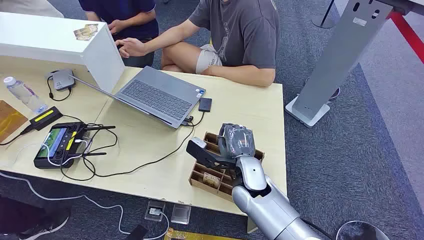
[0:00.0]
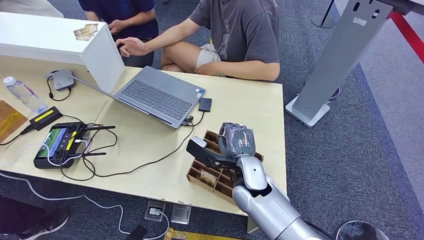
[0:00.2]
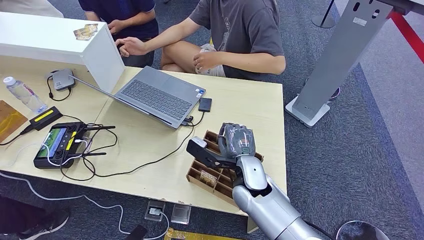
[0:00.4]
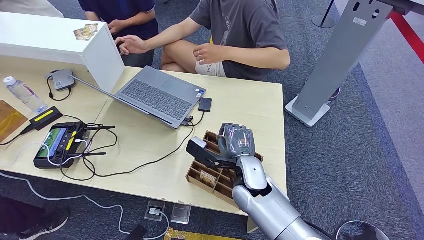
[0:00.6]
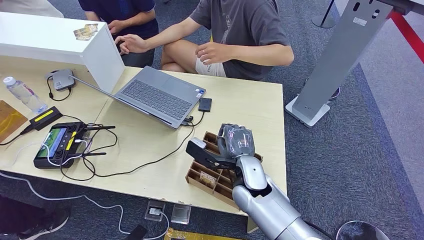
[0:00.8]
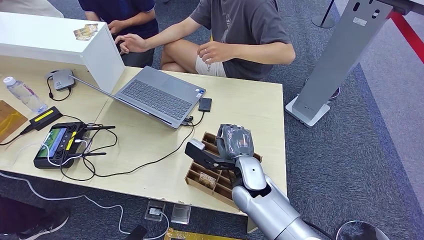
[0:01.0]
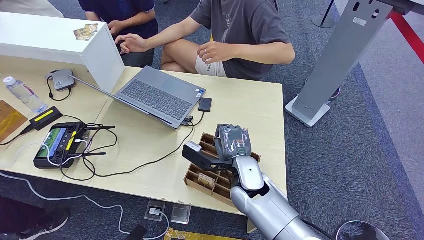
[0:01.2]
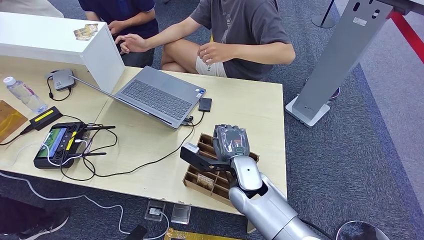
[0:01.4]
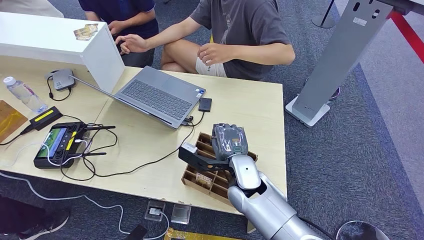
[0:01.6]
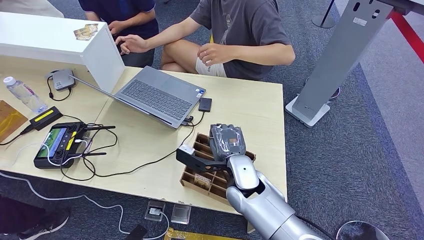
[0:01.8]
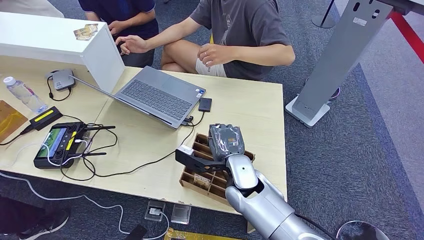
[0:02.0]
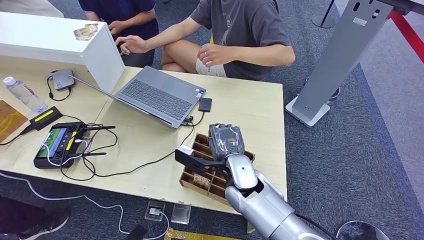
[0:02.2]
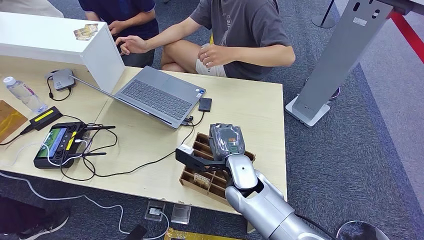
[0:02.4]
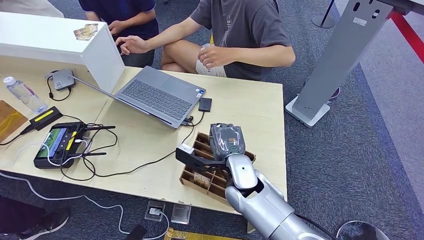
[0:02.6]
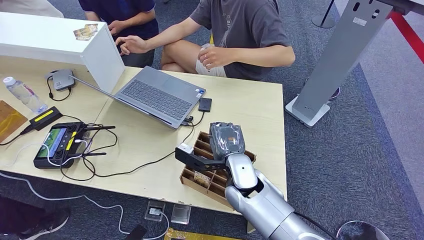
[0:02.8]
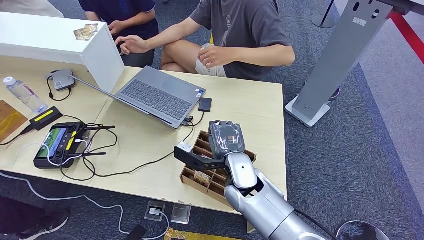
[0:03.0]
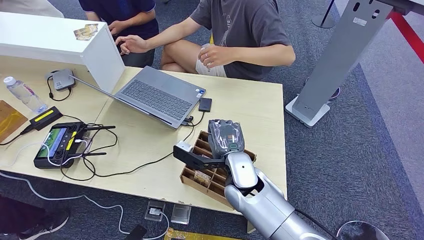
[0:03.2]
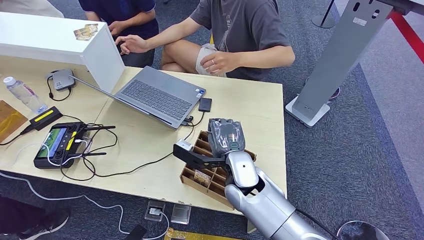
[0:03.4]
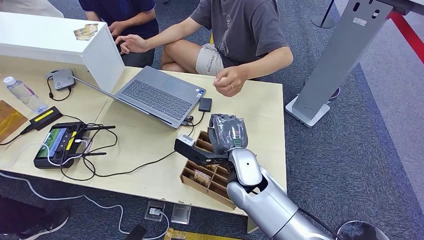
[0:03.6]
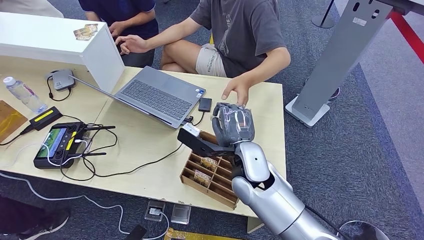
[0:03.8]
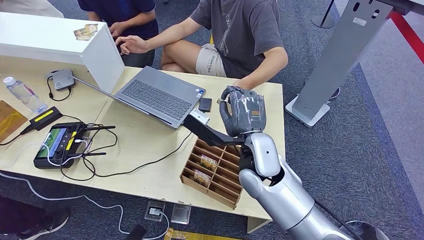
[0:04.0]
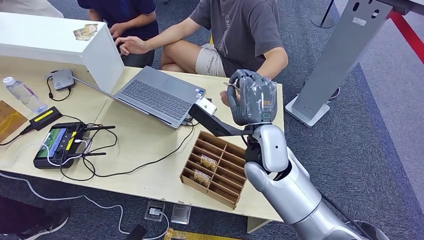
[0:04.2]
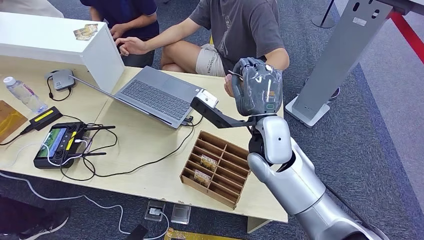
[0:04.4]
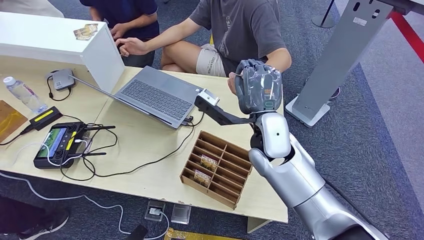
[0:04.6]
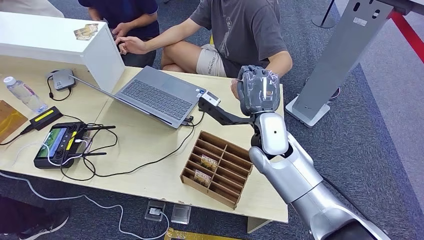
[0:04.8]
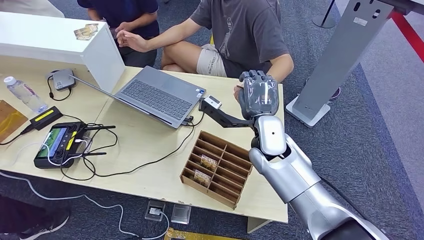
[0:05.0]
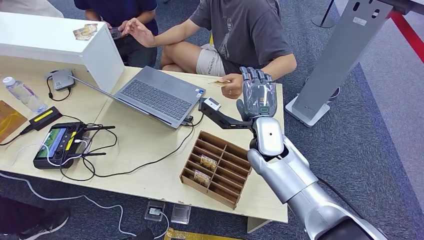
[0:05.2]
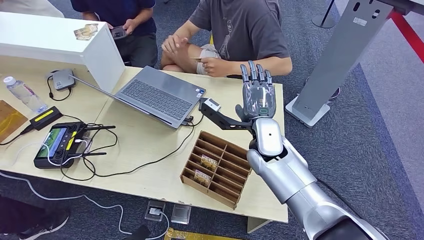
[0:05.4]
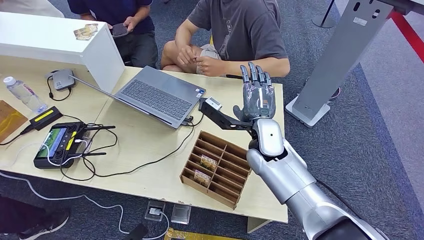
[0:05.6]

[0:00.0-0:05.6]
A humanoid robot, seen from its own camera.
Step, 0:00.0 to 0:04.0: Pick up the room card from the card holder.
Step, 0:04.2 to 0:05.6: Hand the room card to the target.
0:01.4 to 0:02.8: Neither hand changes place.
0:02.8 to 0:04.2: The right hand moves upward, some 10 cm.
0:04.2 to 0:05.6: The right hand is displaced forward by about 5 cm.
